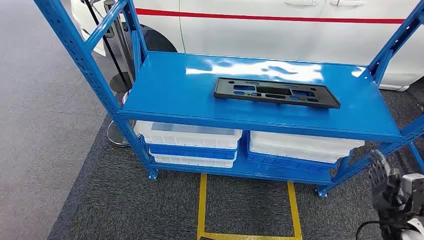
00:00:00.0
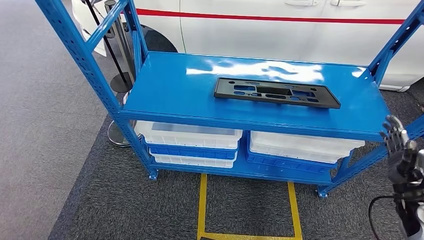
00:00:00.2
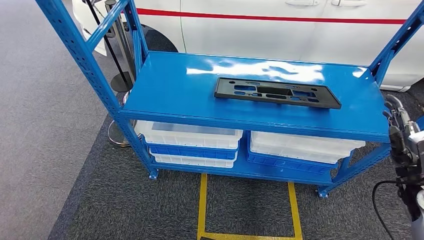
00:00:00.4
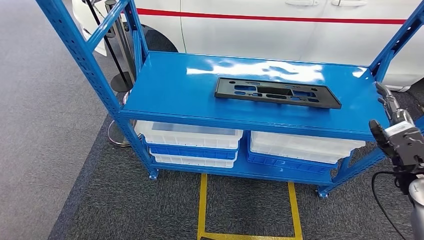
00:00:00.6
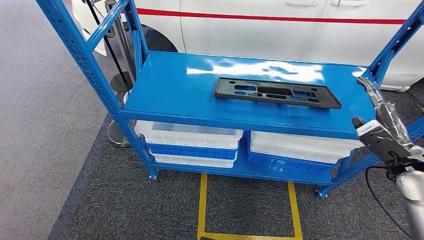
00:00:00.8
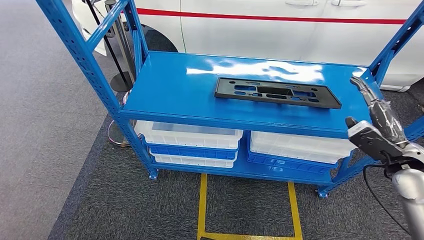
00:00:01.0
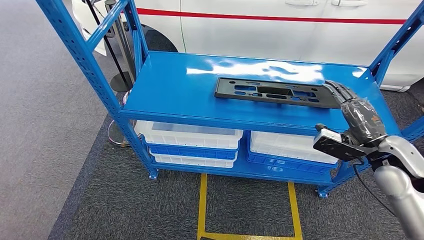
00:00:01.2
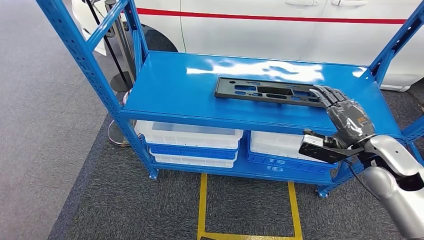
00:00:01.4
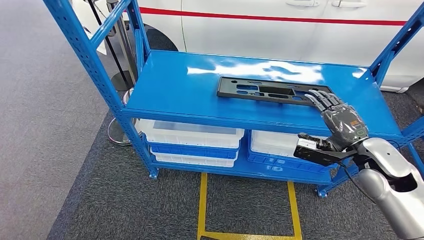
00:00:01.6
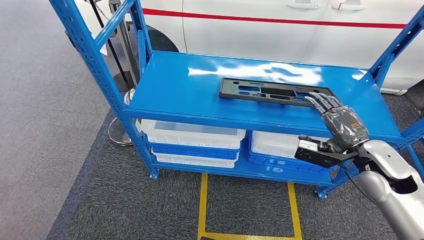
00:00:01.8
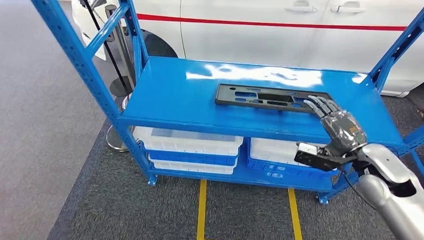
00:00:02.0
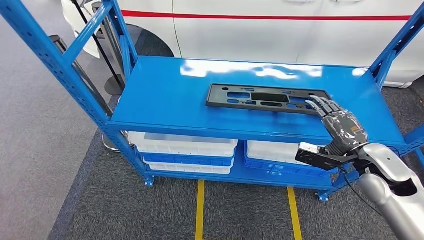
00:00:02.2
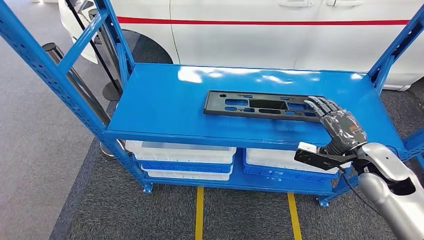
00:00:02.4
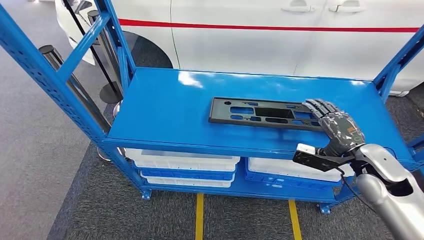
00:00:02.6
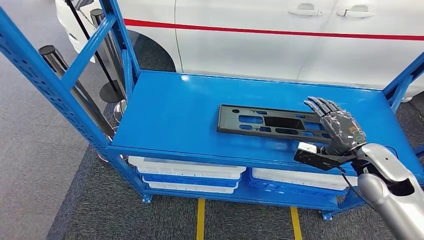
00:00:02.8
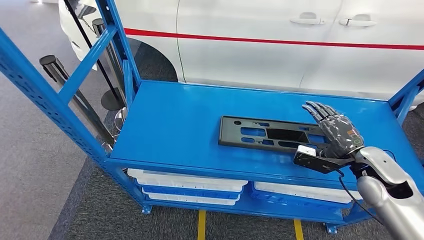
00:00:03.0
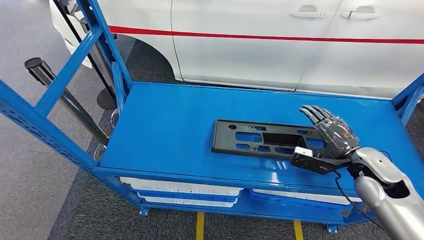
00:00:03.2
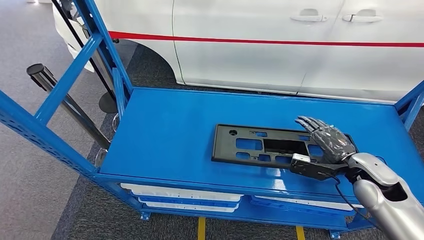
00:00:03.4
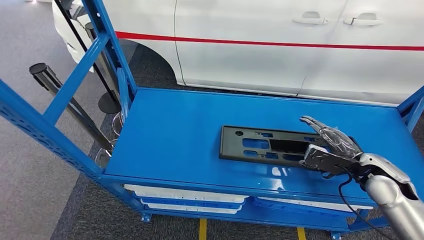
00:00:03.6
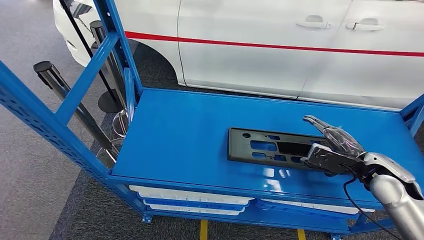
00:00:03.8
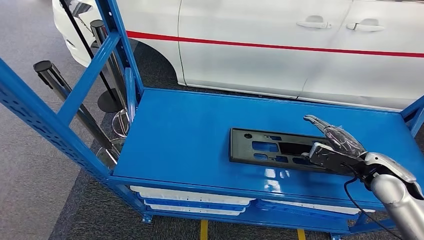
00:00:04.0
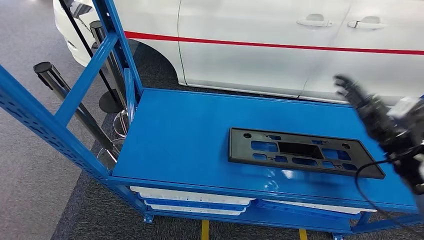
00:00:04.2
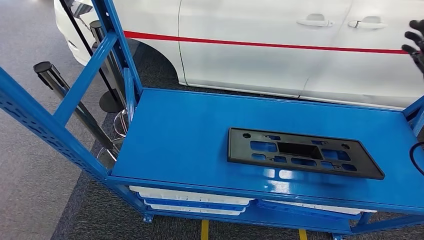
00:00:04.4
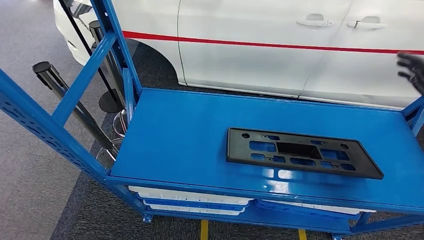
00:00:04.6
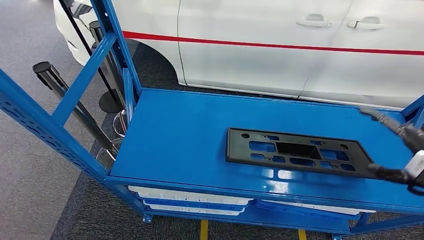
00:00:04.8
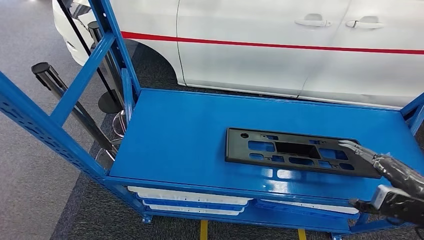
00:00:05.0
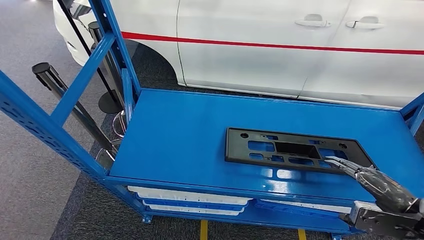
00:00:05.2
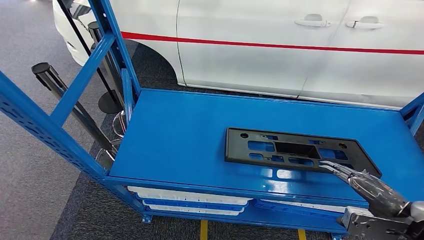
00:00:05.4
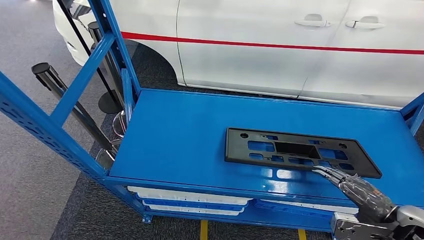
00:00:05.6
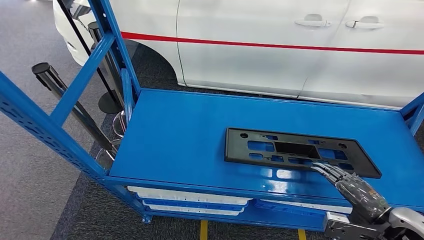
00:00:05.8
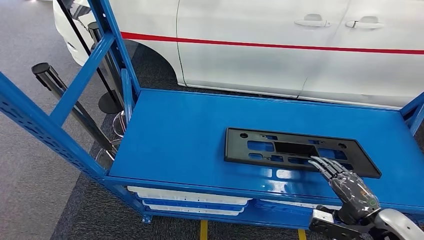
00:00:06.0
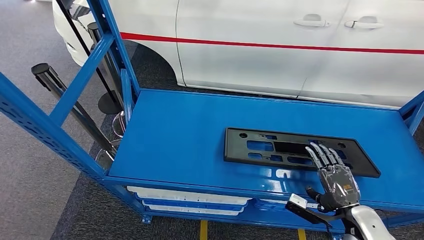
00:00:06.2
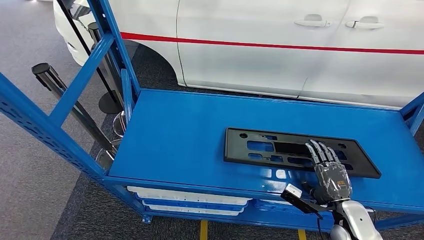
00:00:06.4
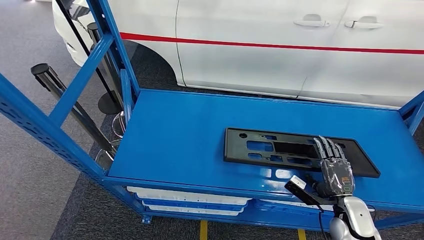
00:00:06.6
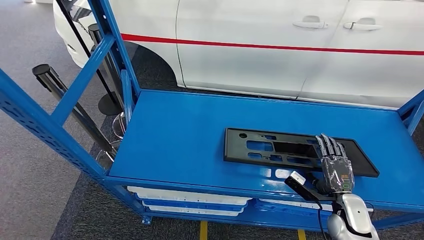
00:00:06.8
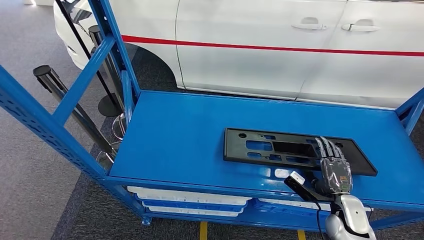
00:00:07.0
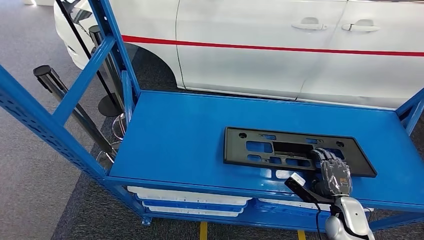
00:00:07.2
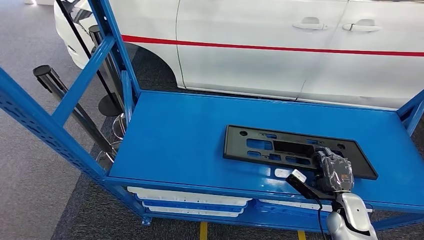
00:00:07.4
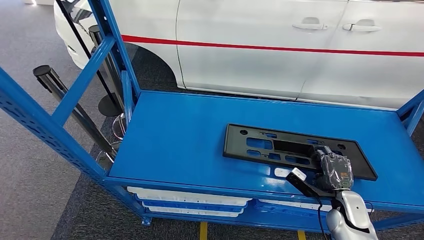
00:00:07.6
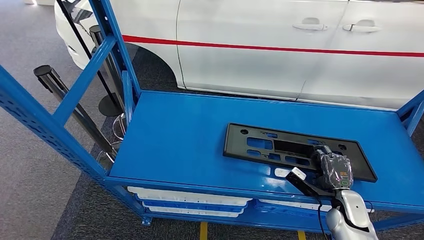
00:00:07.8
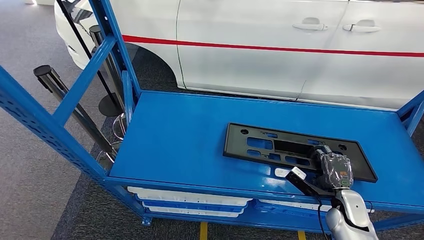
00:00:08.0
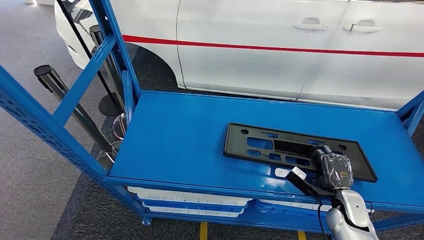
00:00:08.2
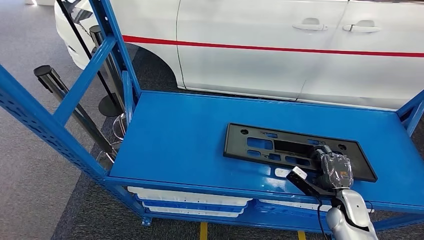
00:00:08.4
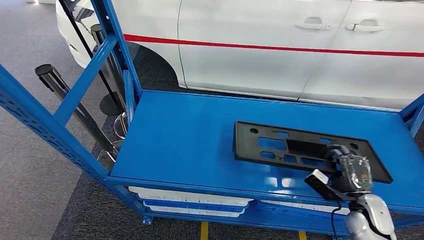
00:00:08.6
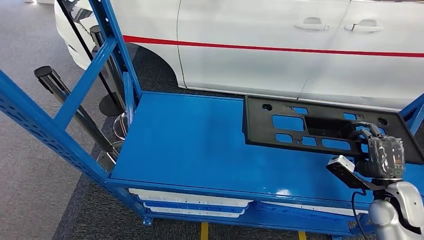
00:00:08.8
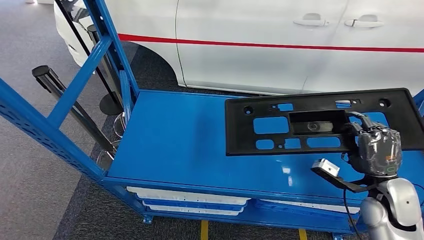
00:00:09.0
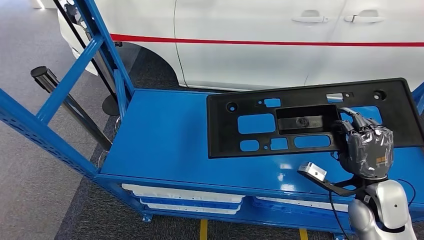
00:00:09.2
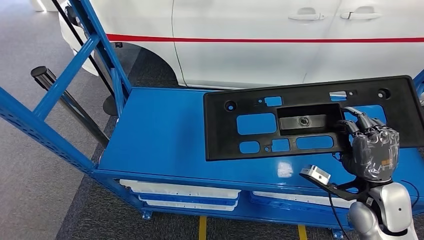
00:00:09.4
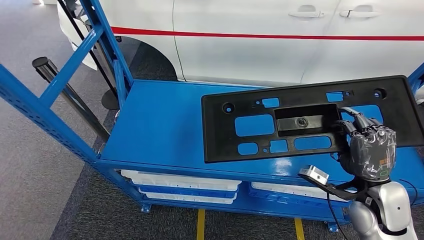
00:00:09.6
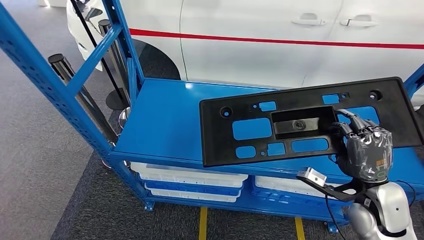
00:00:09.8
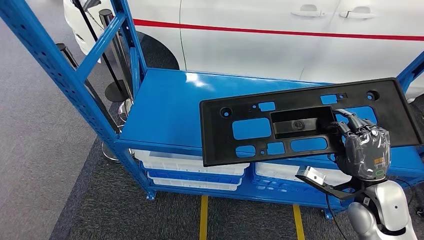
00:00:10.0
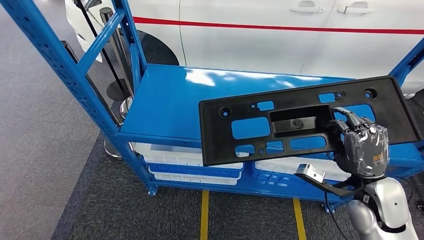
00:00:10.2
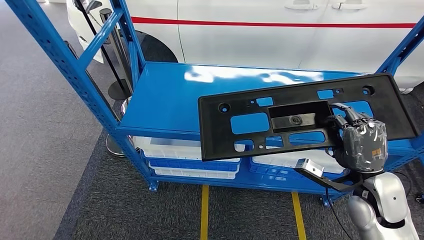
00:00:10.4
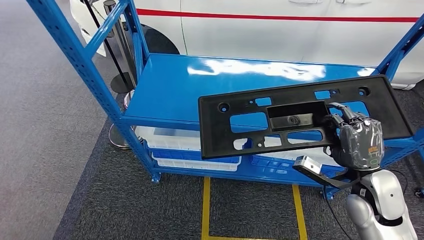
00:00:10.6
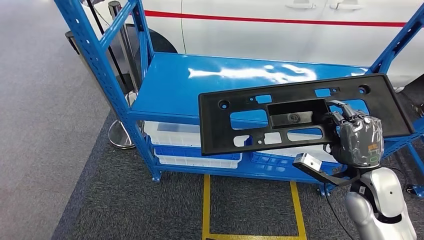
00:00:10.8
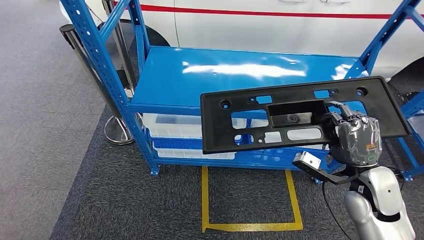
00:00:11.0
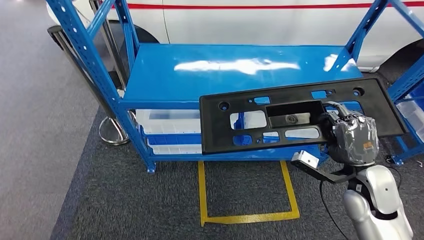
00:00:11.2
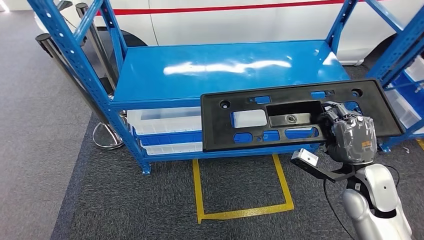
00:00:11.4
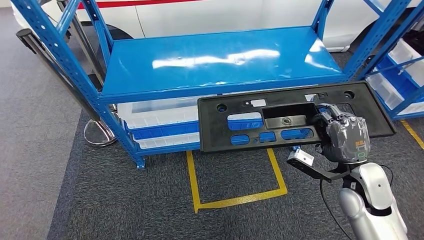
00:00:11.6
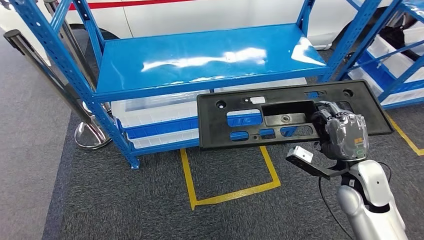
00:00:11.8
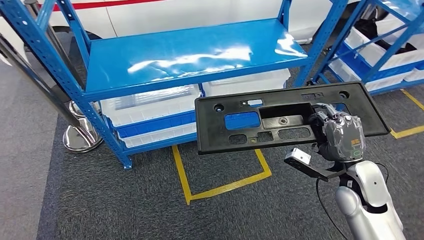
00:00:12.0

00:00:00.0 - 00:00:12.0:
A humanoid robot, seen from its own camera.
Step, 00:00:00.0 - 00:00:09.0: Pick up the large material from the shelf.
00:00:04.4 - 00:00:06.0: The right hand shifts some 25 cm downward and backward.
00:00:06.0 - 00:00:07.6: The right hand is displaced downward and forward by about 15 cm.

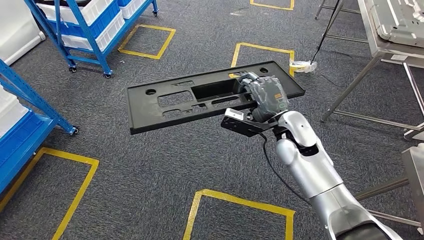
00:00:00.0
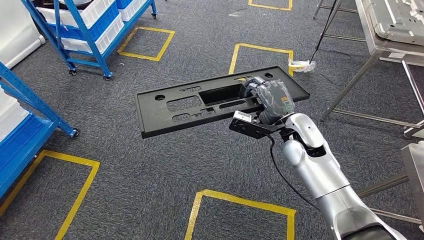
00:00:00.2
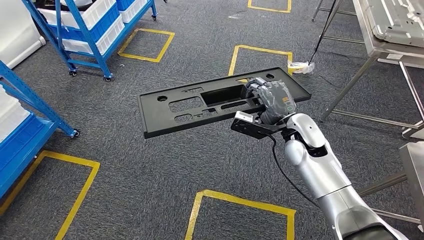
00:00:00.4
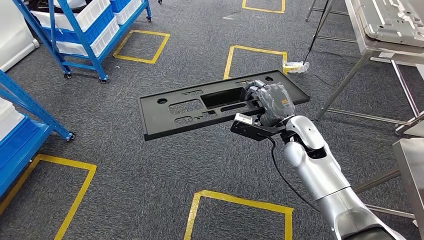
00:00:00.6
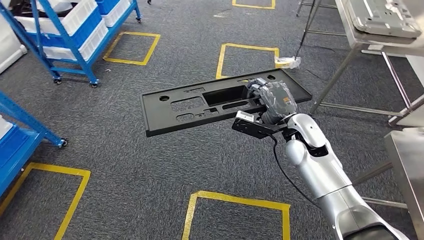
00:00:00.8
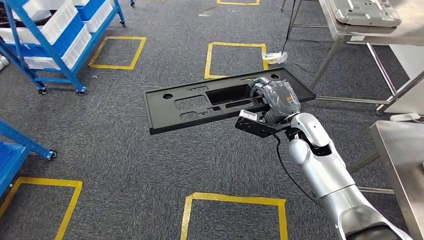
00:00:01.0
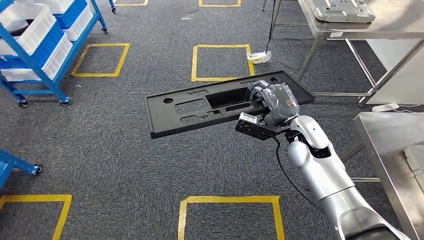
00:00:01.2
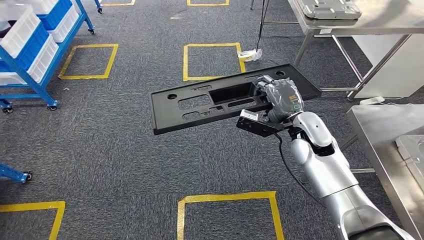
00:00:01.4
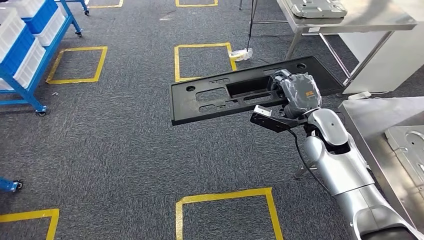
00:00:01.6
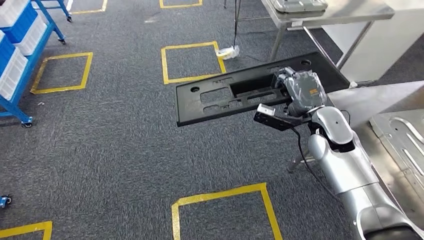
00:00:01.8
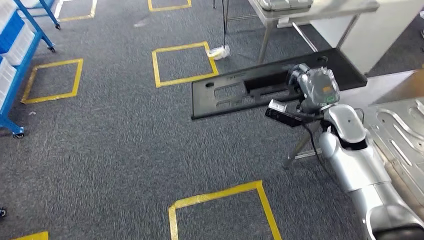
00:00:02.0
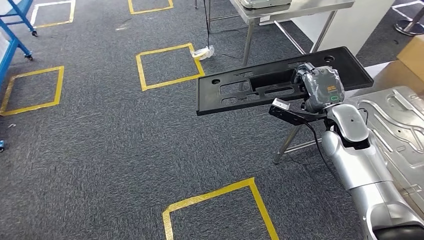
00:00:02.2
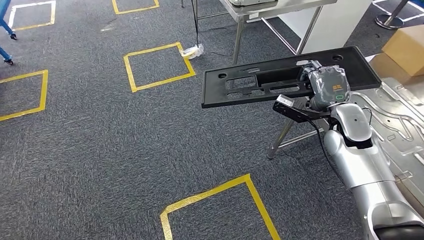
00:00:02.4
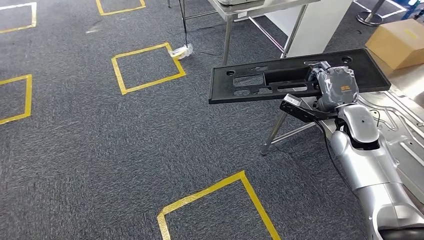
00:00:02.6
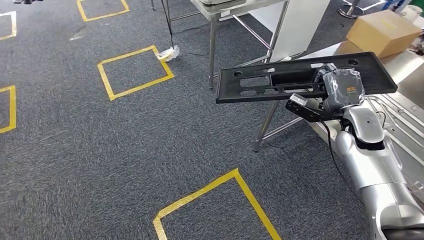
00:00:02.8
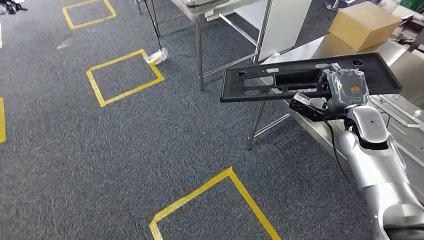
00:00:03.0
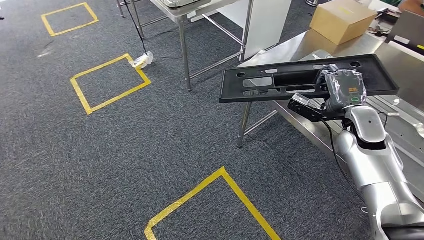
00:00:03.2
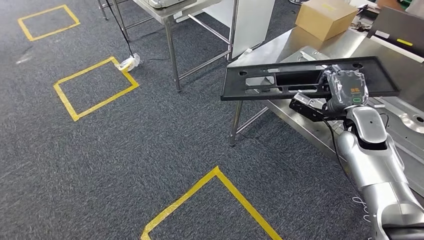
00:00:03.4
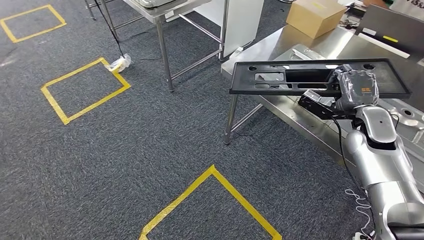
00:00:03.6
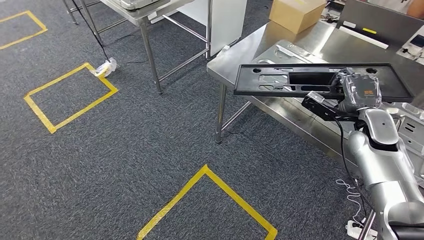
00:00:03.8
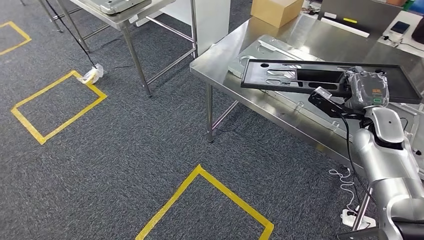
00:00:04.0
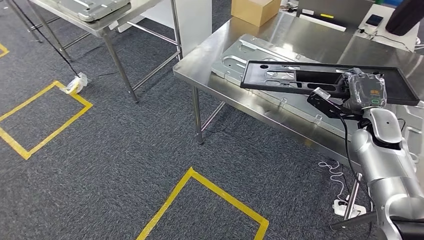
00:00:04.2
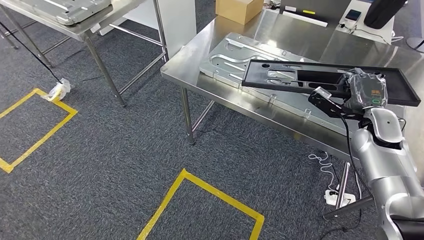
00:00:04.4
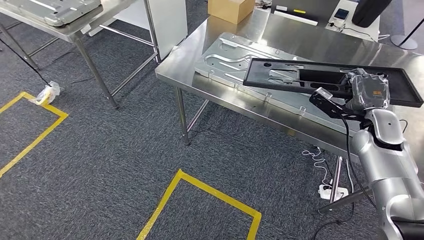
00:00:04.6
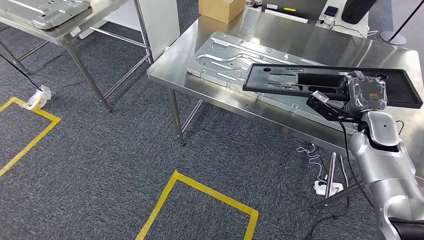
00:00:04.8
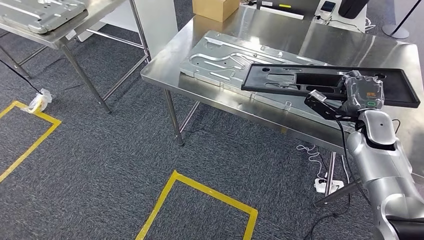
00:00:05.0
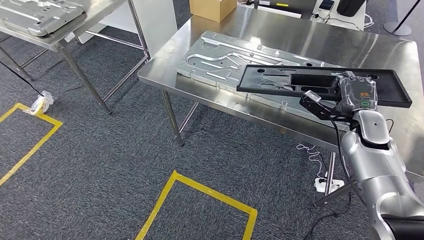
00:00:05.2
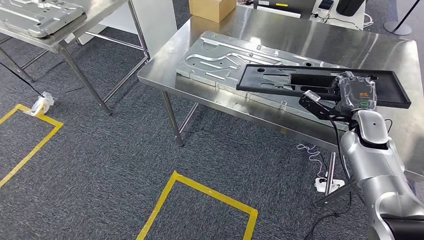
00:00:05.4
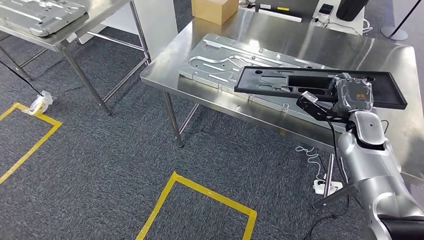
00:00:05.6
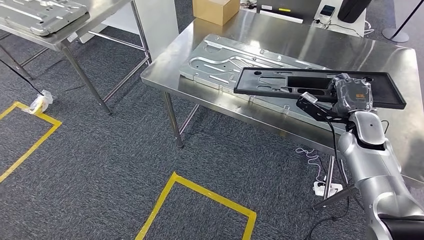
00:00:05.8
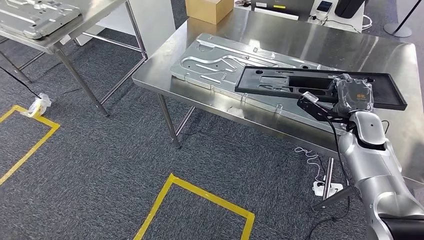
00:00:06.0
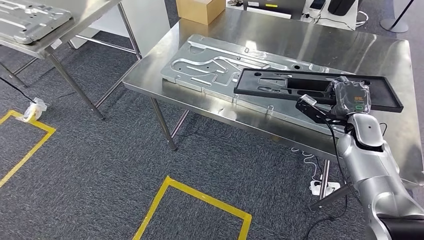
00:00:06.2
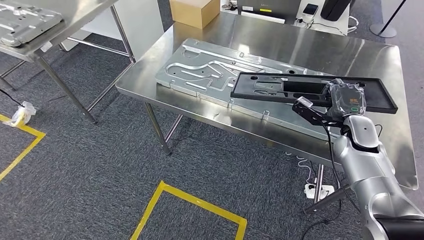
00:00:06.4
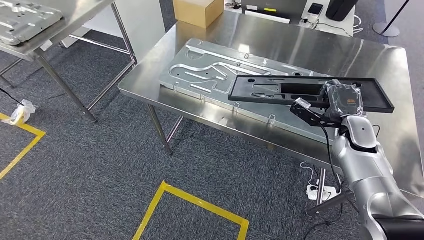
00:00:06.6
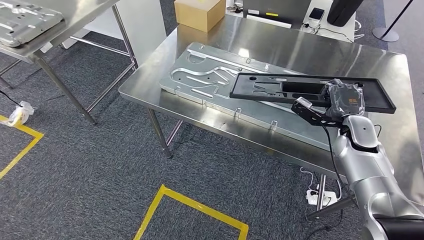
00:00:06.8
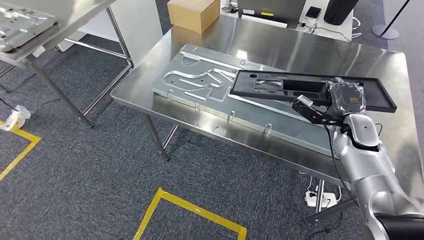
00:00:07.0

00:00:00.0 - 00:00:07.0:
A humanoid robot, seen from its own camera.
Step, 00:00:00.0 - 00:00:02.4: Move the large material to the workbench.
